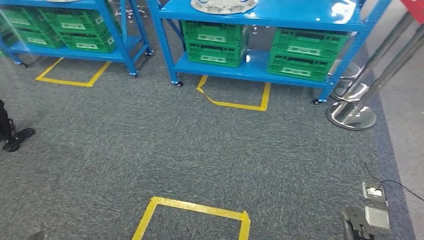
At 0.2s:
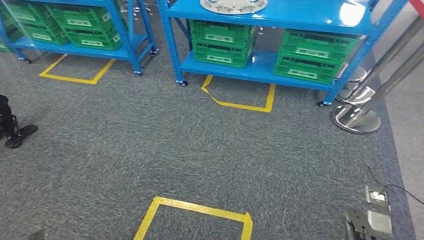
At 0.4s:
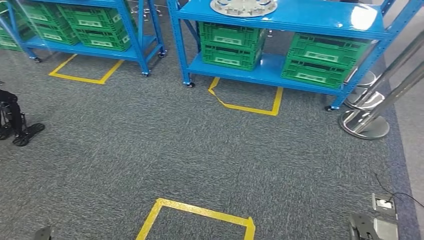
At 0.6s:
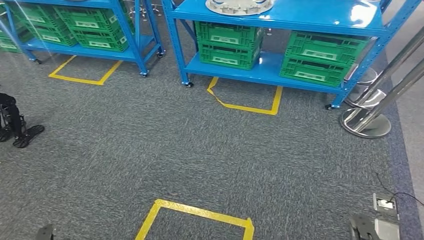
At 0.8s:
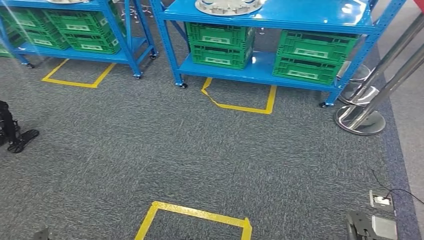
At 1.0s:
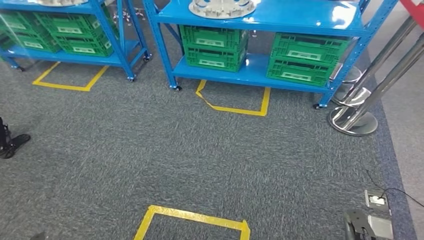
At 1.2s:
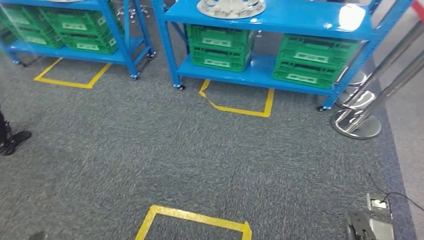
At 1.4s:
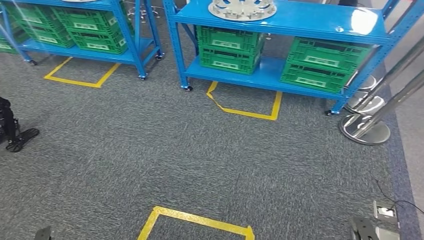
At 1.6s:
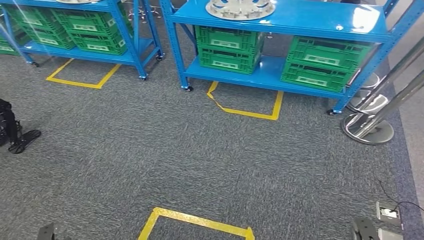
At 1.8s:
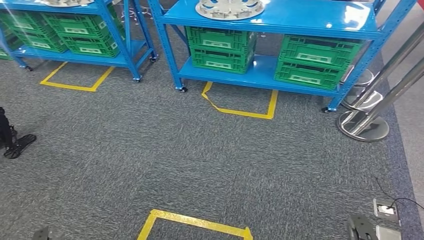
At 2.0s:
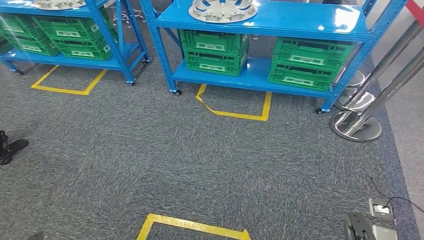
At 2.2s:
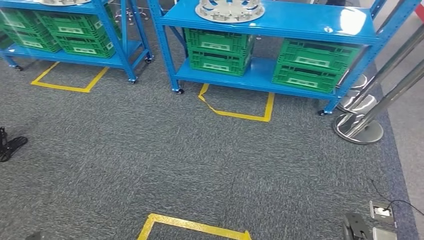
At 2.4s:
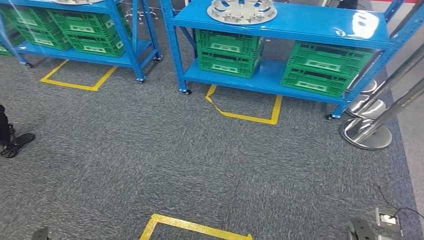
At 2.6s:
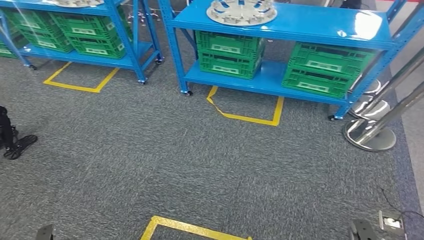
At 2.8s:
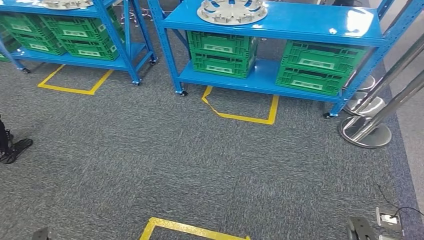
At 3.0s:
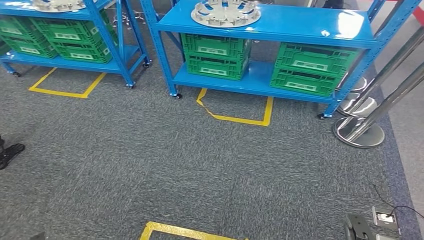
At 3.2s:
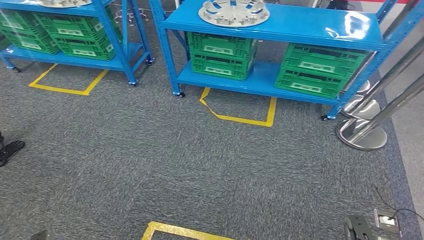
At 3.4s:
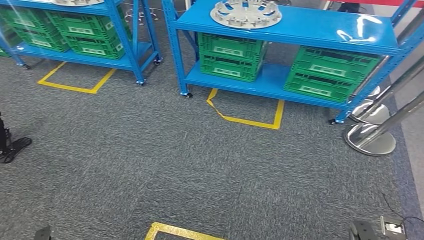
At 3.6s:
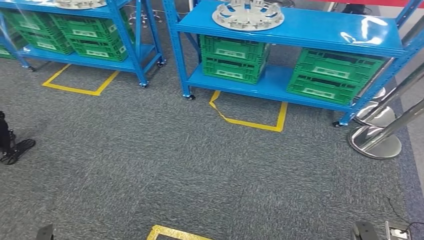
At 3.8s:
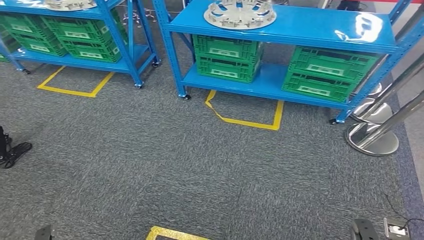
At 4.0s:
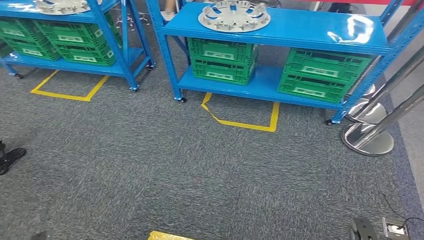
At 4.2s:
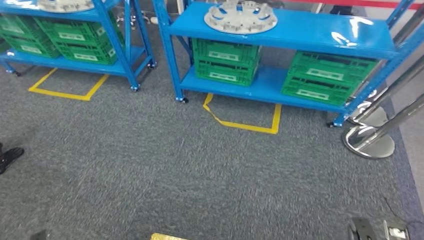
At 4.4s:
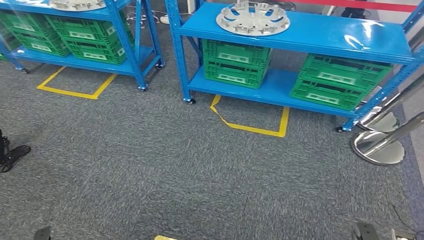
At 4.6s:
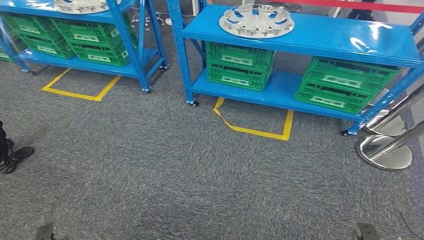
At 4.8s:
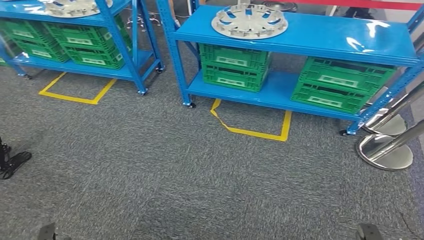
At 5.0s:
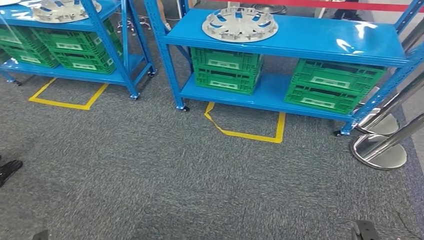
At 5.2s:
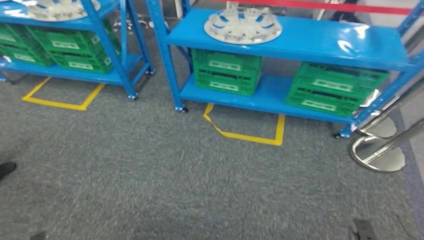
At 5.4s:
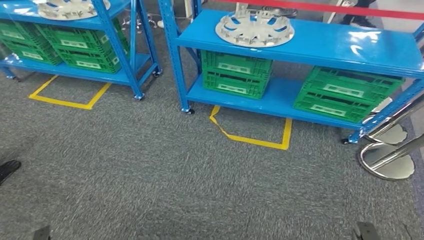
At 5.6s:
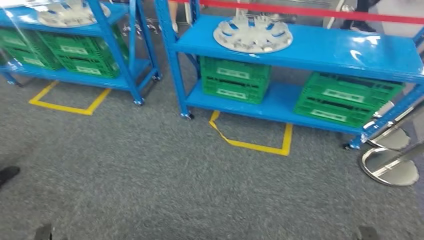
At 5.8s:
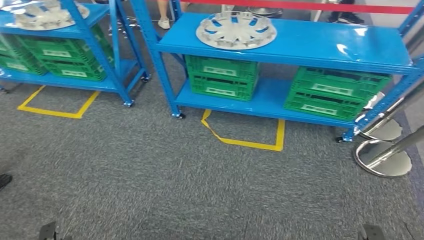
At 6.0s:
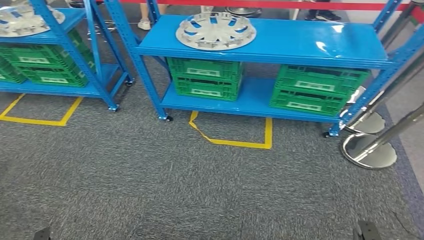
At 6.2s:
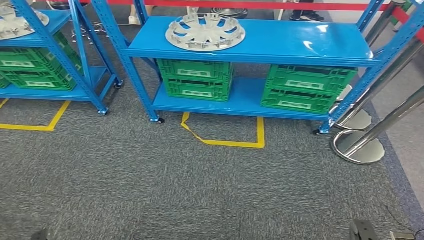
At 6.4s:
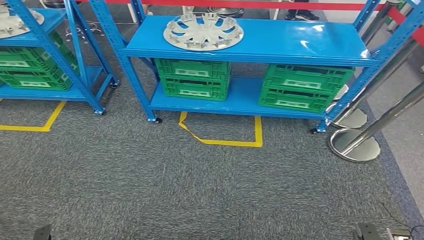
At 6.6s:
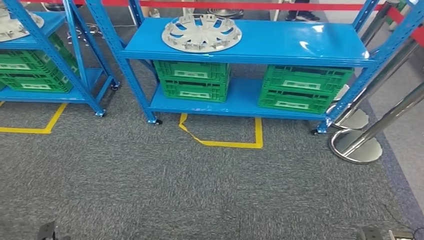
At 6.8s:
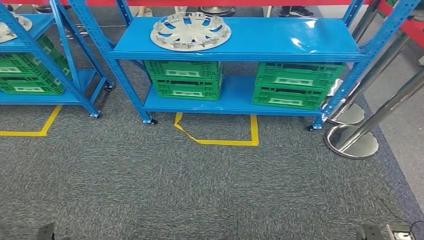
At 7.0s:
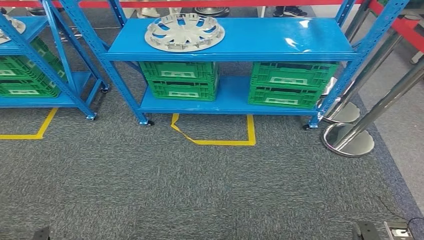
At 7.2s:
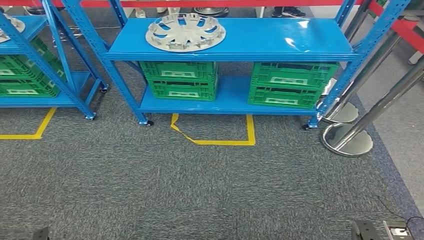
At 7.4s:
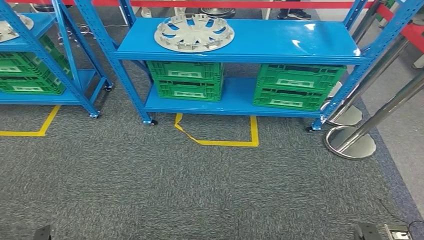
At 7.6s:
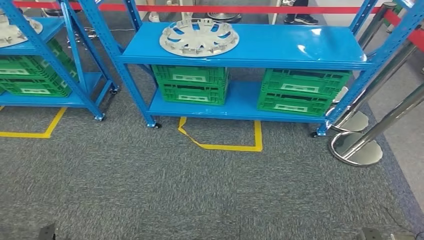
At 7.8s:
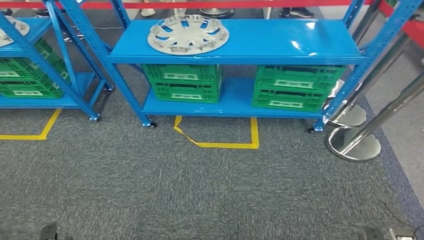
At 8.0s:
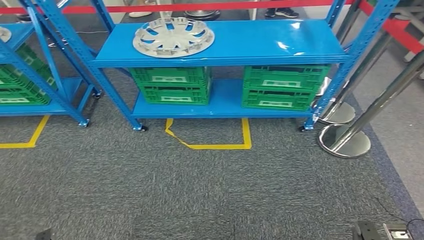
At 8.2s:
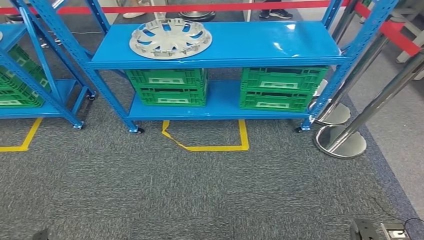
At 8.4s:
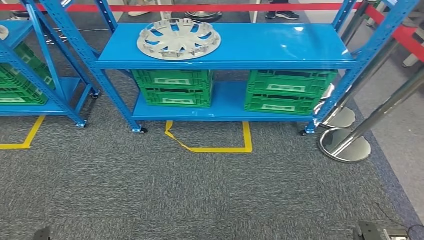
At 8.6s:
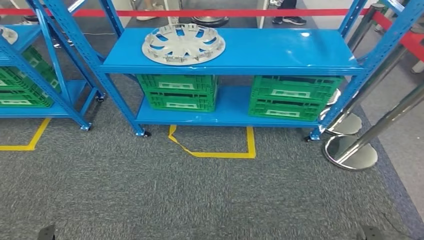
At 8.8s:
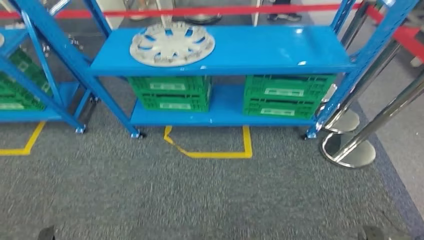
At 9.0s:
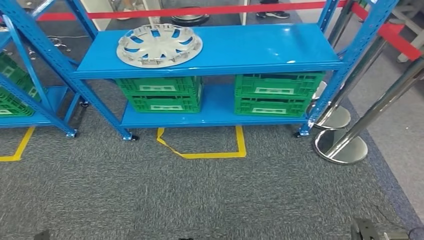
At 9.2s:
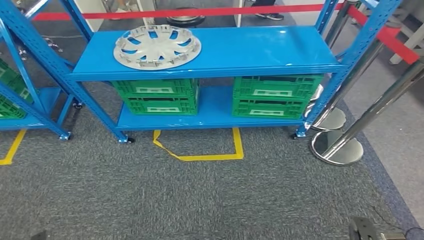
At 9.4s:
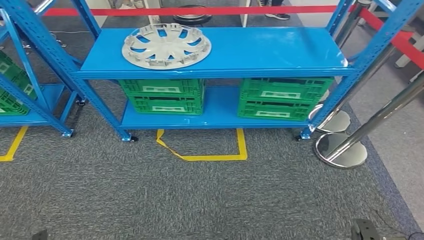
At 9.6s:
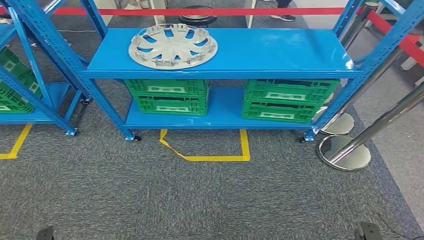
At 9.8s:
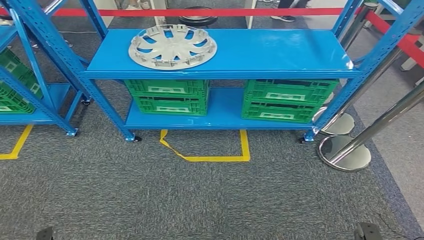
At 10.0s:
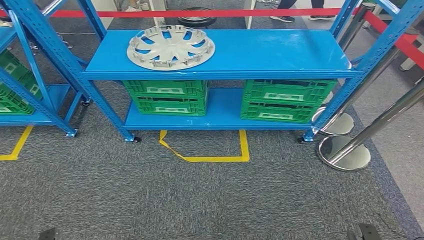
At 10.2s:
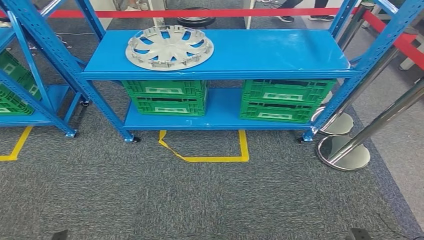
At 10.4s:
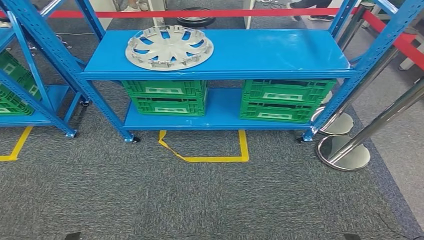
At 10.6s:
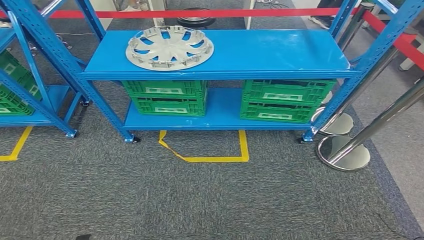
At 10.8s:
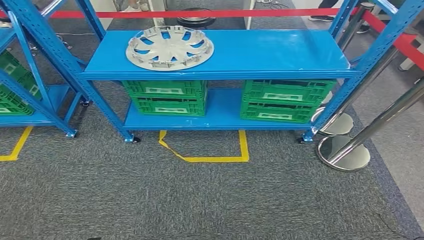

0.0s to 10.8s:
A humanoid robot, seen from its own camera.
Step, 0.0s to 10.6s: Return to the initial position at the workbench.

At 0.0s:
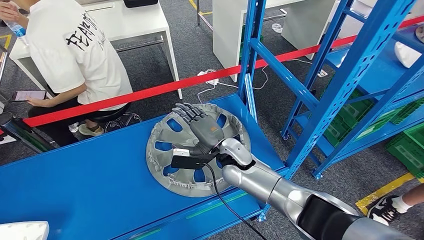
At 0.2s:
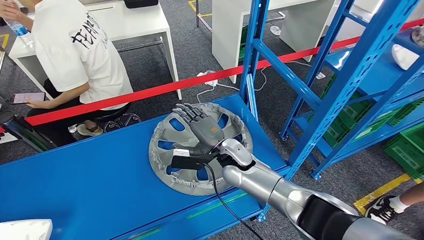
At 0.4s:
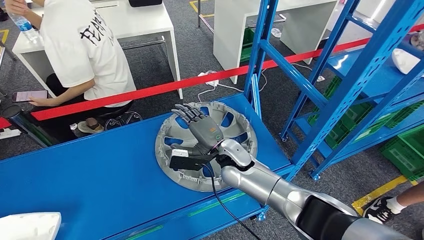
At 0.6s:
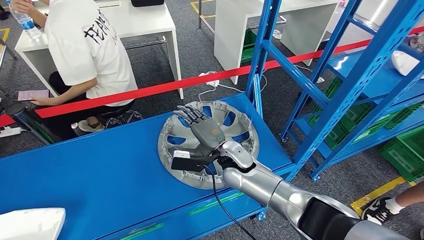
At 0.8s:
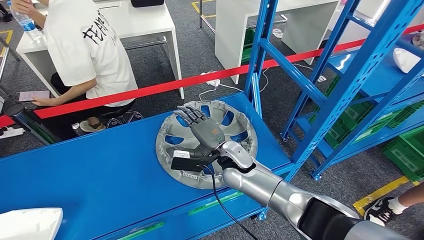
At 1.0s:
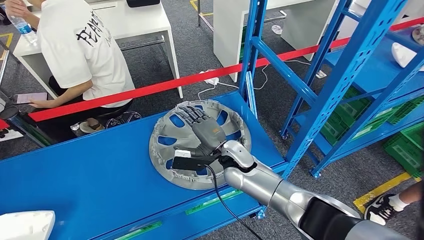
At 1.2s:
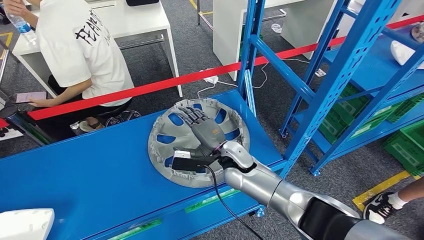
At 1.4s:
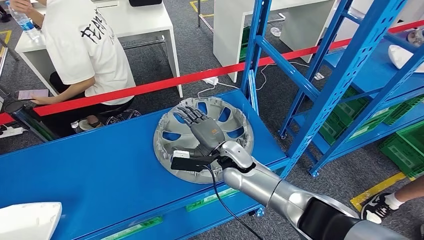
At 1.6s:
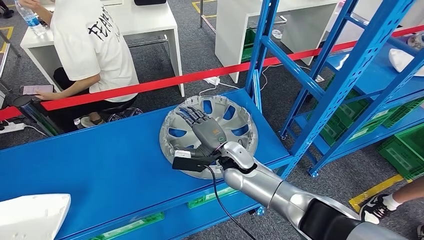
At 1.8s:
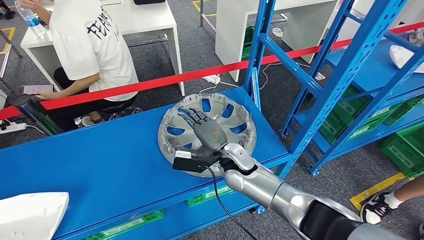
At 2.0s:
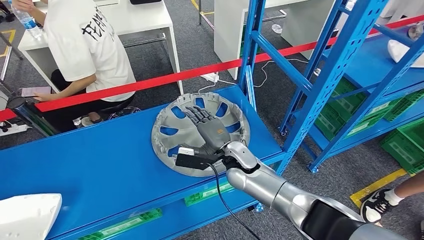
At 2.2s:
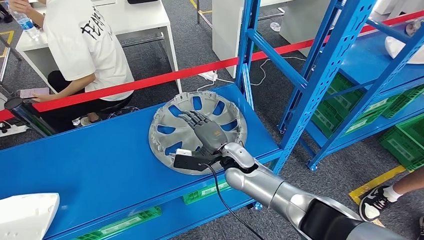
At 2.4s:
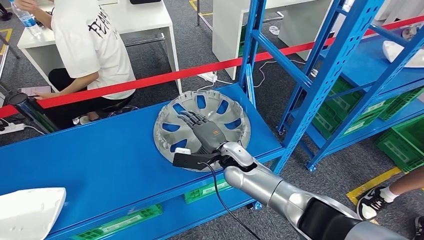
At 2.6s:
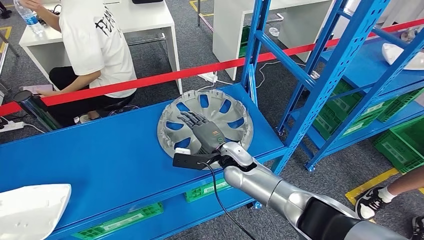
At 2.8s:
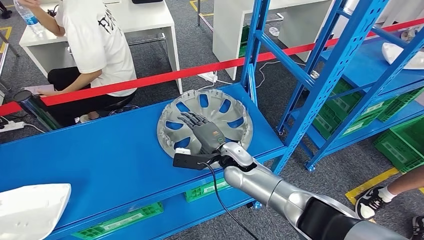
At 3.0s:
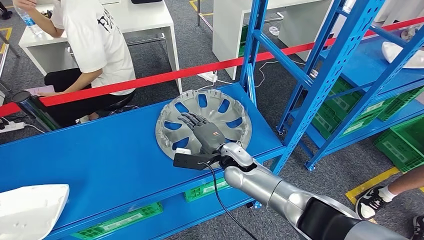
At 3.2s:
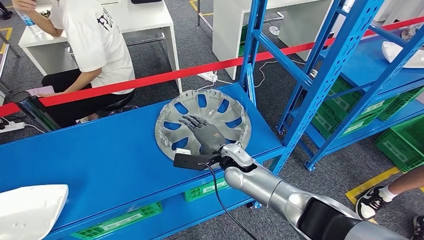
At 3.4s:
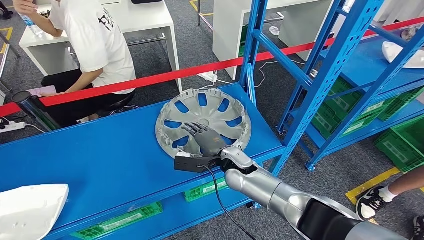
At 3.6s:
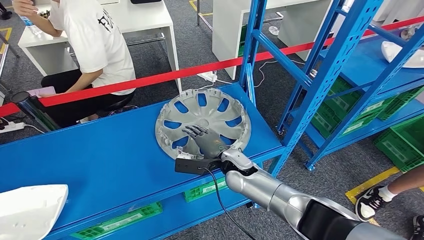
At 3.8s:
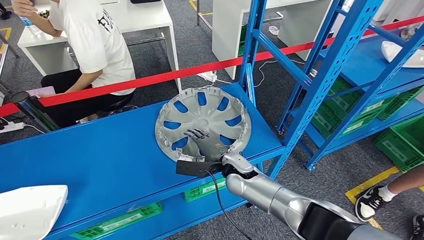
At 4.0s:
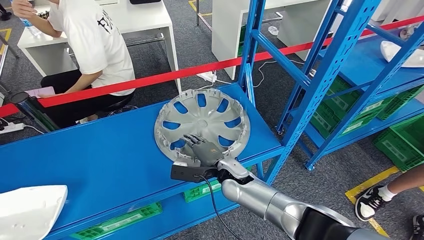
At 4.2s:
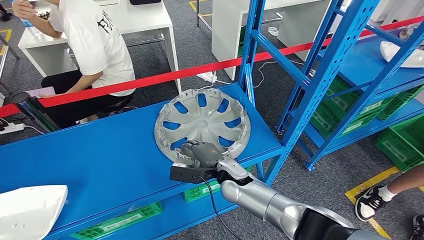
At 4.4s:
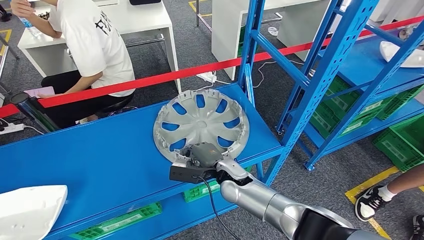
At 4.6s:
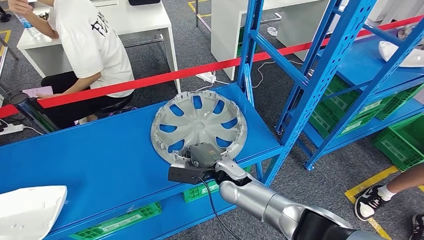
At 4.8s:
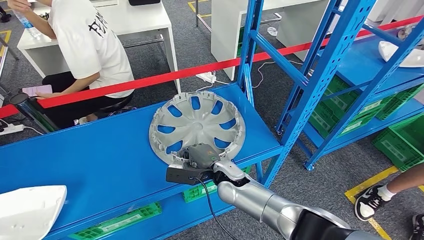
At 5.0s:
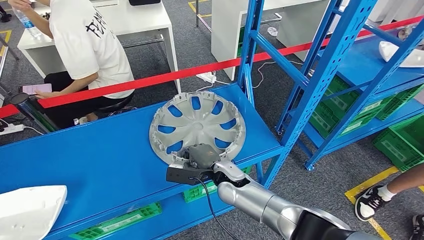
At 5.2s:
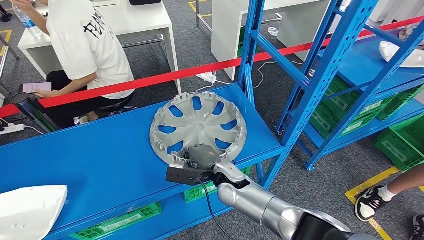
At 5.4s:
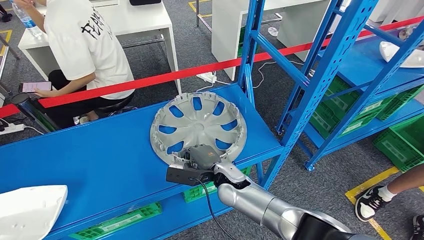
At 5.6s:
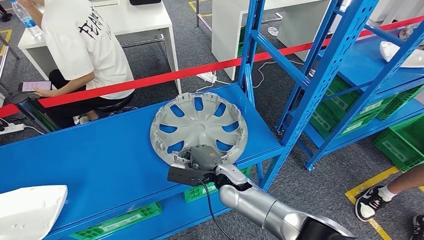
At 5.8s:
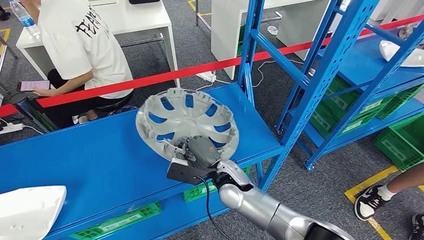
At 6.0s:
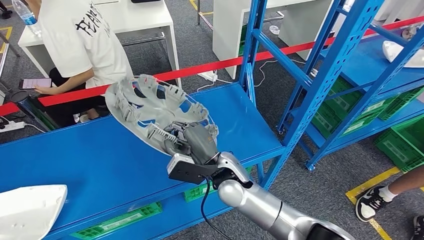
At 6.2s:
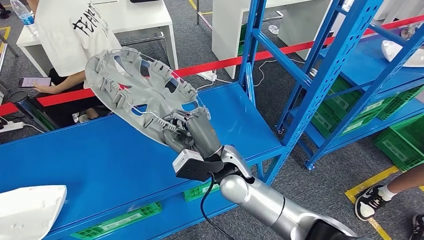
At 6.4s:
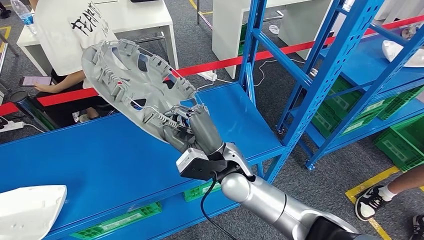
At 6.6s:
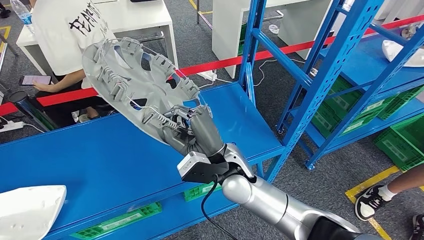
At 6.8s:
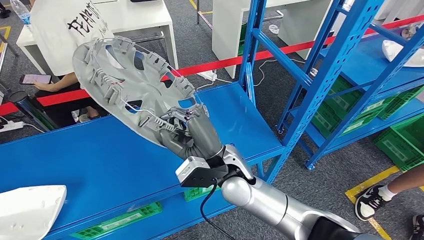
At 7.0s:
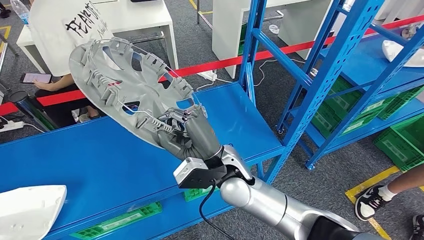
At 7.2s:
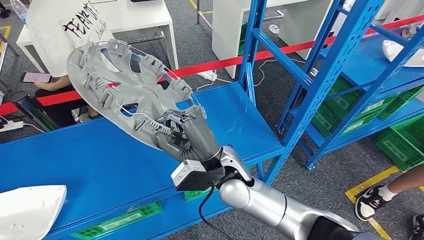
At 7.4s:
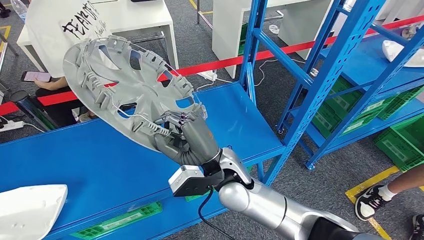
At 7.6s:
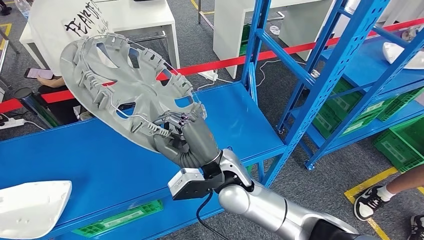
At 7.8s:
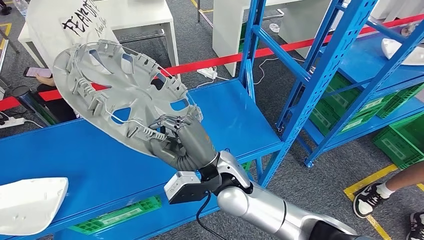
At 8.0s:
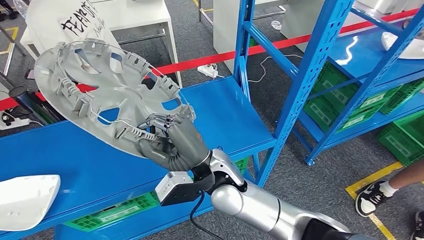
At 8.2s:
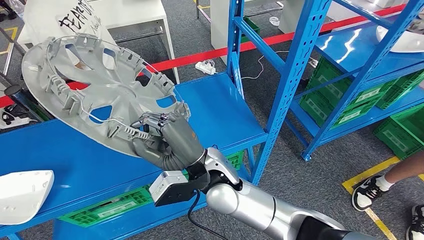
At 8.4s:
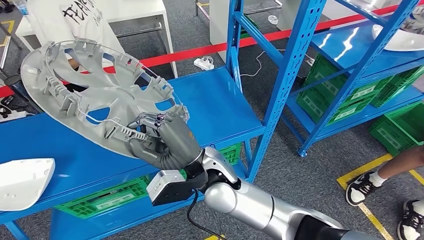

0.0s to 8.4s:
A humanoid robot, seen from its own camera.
Step, 0.0s to 7.8s: Pick up the small component from the shelf.
4.2s to 5.6s: The hands make only small movements.
